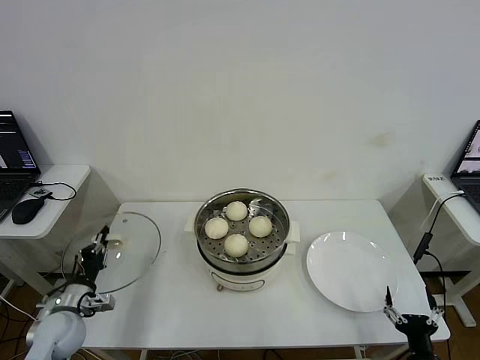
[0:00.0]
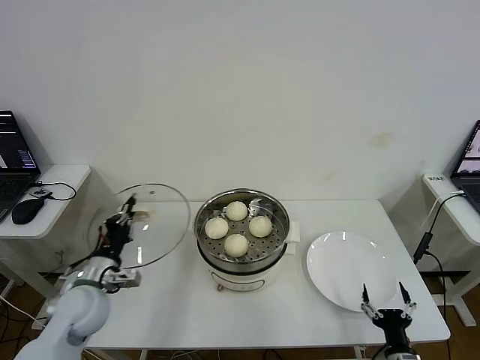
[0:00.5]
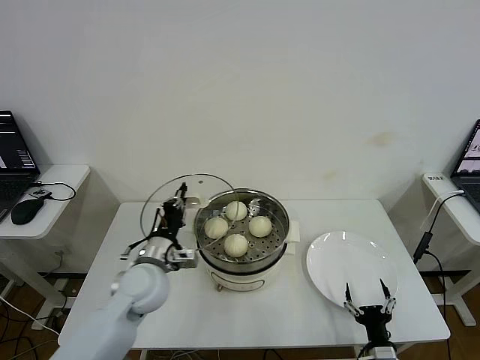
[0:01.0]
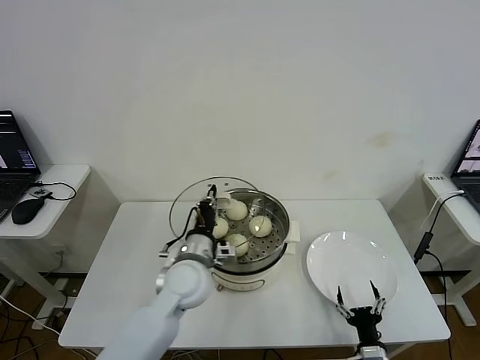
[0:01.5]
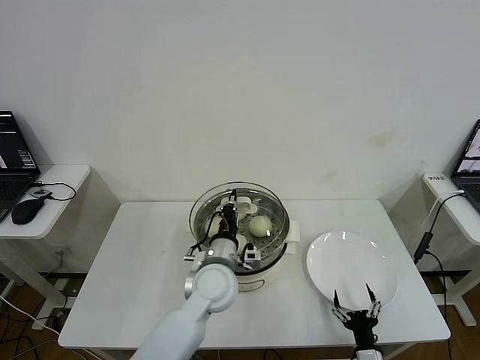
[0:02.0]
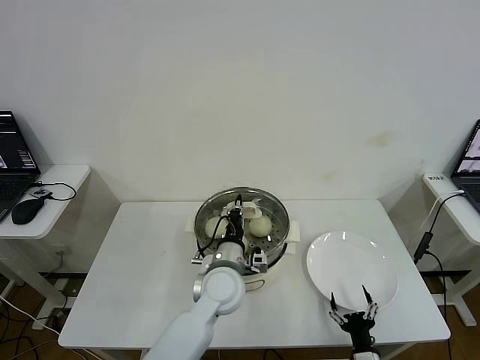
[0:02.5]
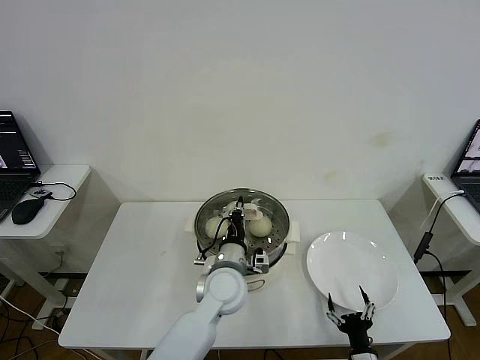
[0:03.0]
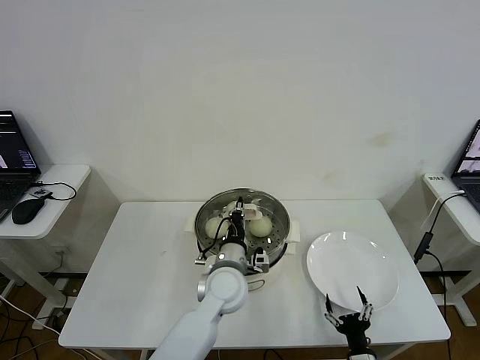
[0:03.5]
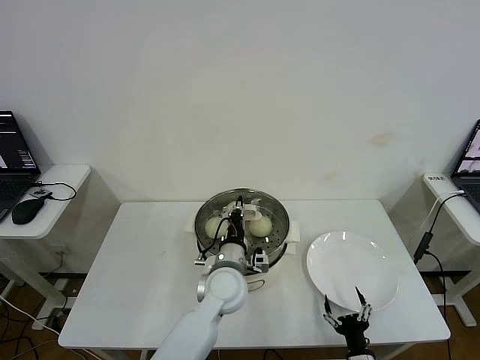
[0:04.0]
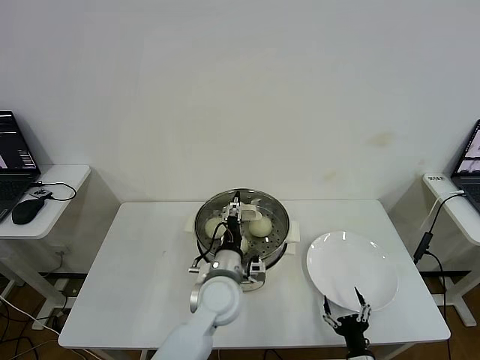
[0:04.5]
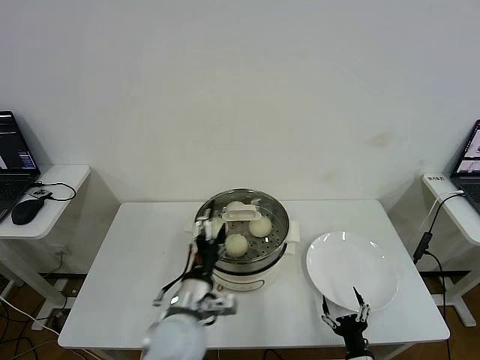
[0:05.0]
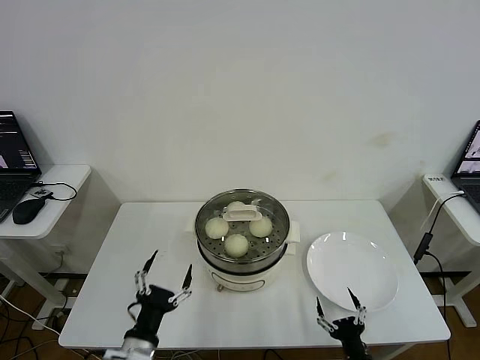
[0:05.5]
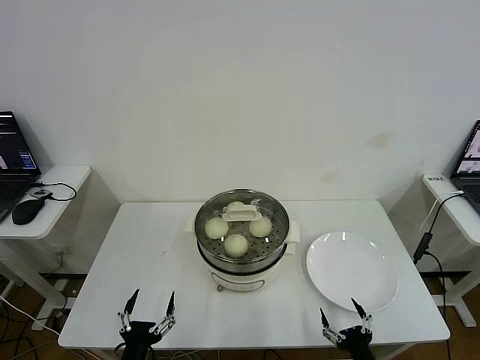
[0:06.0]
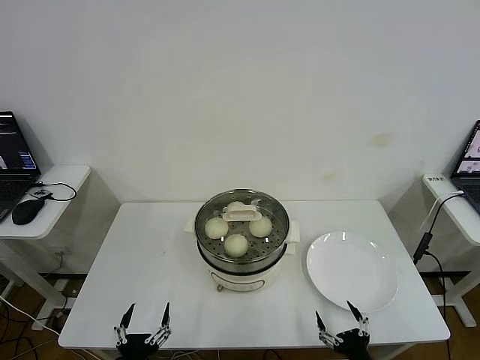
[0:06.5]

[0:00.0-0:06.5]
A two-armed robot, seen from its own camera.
Step, 0.0 to 4.0 s: Place the pot lid on the steamer with left gripper.
0.0 to 2.0 s: The right gripper is displaced to the left by approximately 10 cm. Meanwhile the left gripper heads to the right, covering roughly 35 cm.
2.0 to 4.5 s: The left gripper opens up.
4.5 to 6.5 s: The right gripper moves upward, some 5 cm. Meanwhile the left gripper travels backward and to the left by approximately 30 cm.

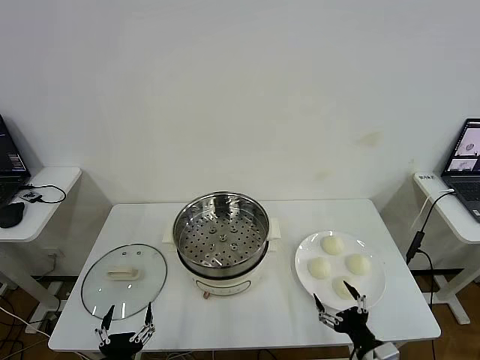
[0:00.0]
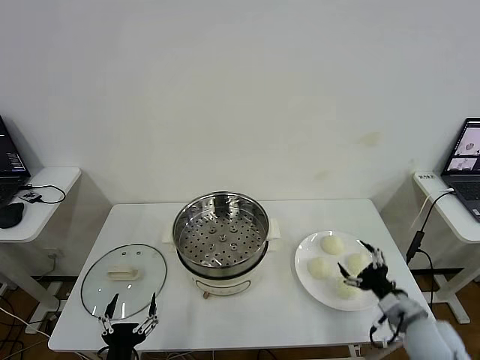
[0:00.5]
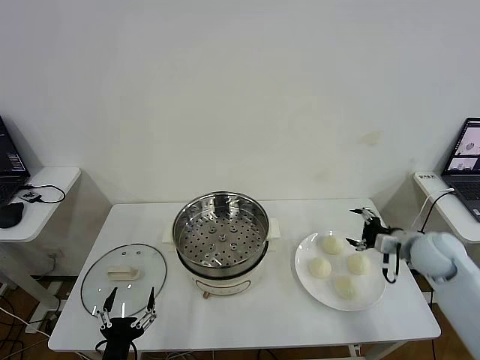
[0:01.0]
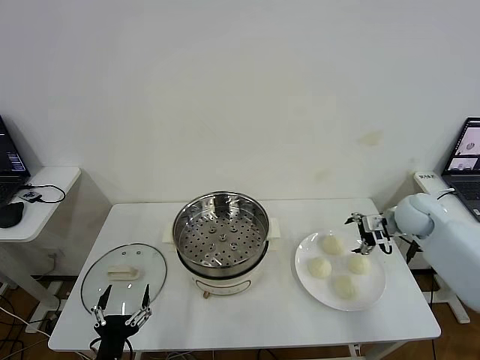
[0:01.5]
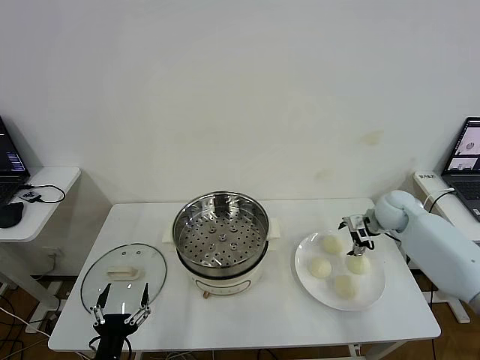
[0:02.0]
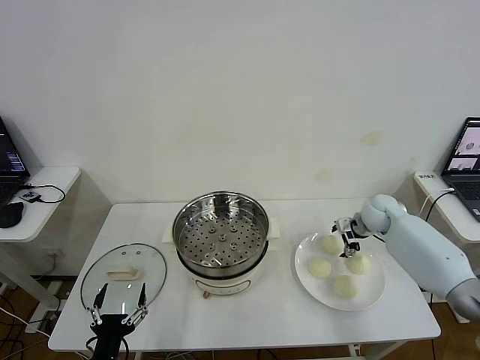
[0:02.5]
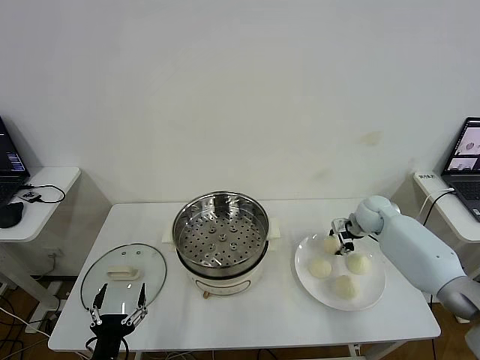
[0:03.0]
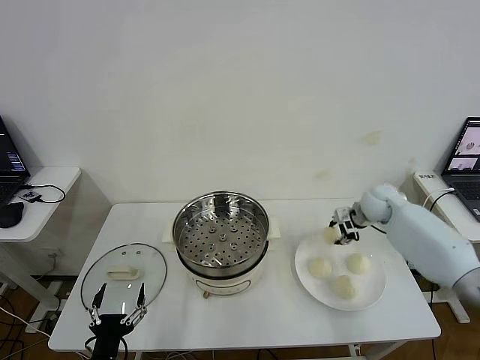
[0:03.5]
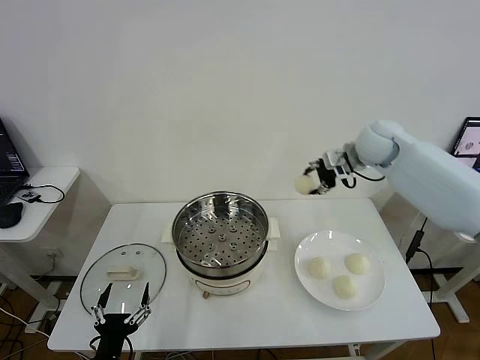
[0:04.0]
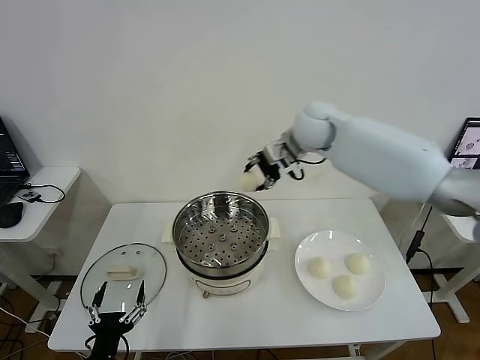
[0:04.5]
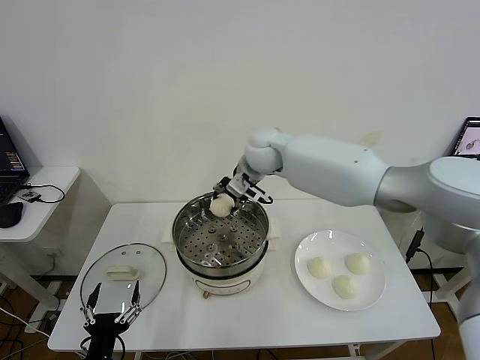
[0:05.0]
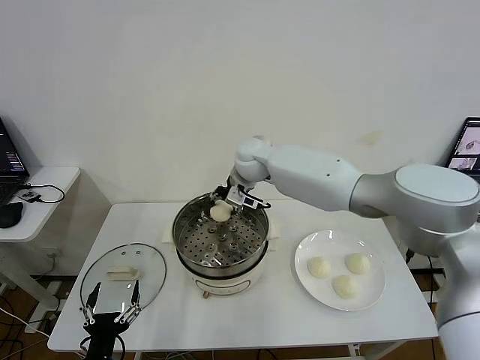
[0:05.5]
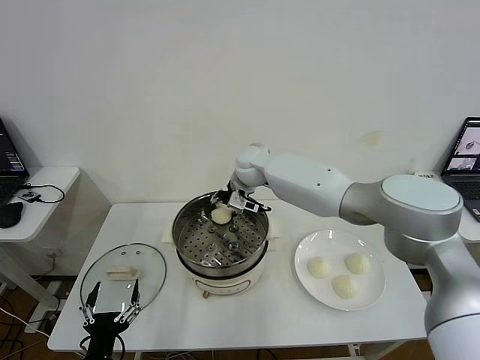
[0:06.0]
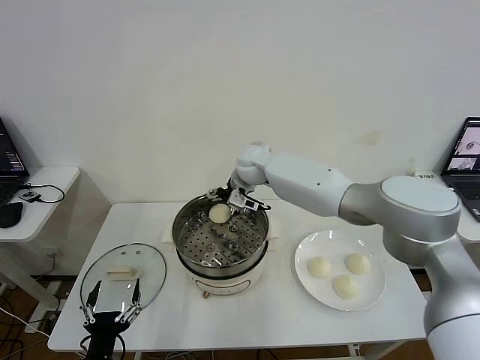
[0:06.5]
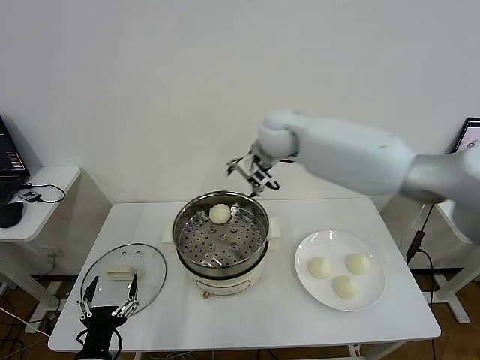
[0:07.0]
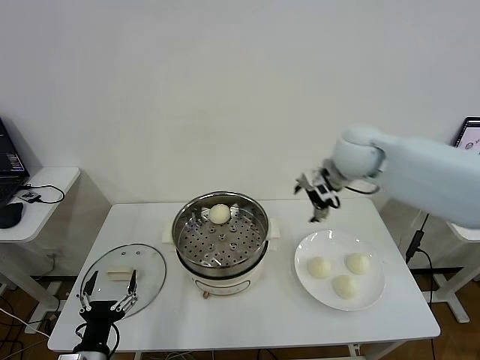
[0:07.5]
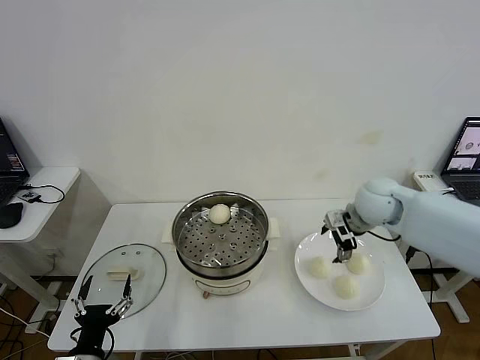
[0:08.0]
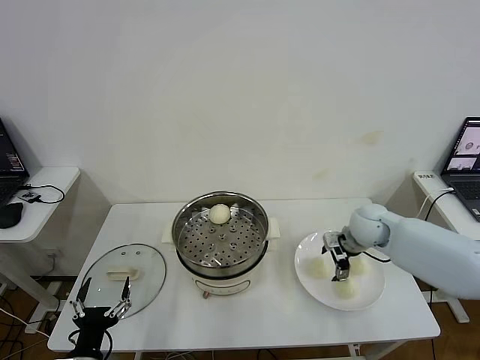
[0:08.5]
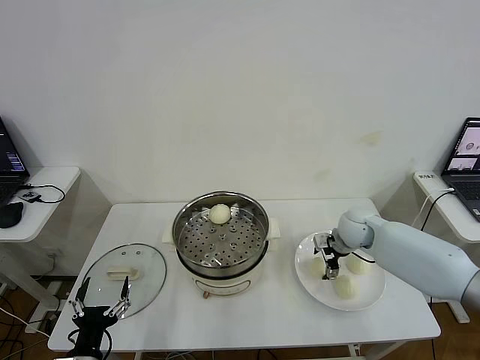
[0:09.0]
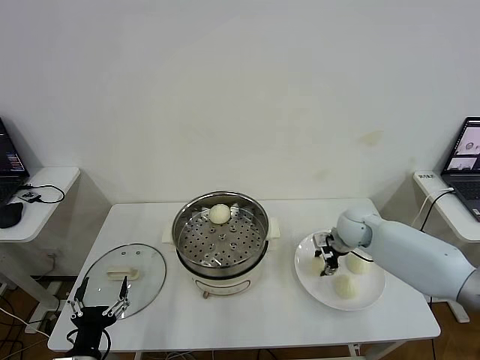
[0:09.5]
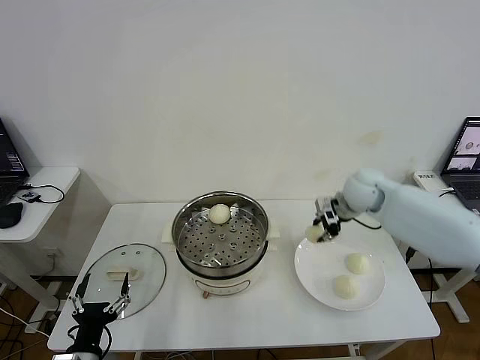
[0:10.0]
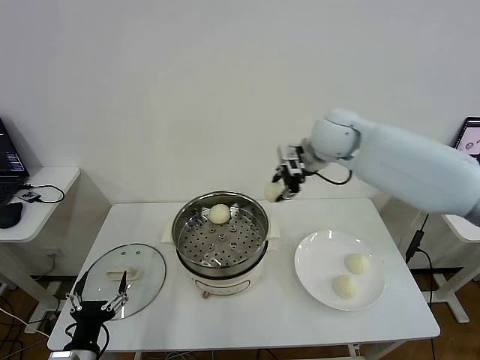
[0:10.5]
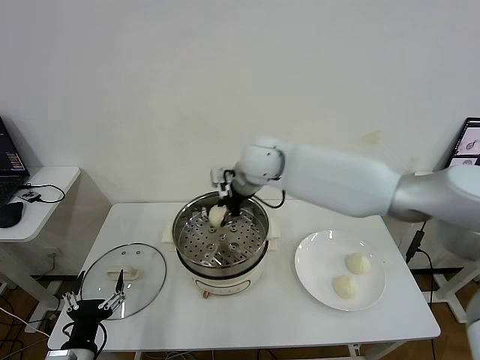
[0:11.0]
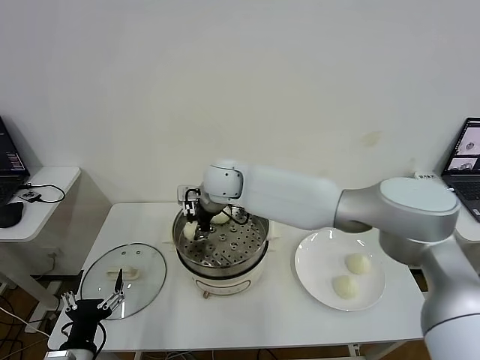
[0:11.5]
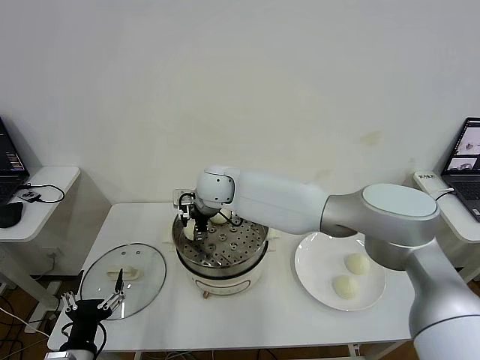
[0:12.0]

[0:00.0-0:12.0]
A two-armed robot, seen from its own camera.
Step, 0.0 to 3.0 s: Grasp the baozi in the plate with right gripper.
Step, 3.5 to 6.0 s: Place the baozi on the steamer with right gripper.
Step, 7.0 to 9.5 s: Grasp the baozi in the plate with right gripper.
2.0 to 4.0 s: The right gripper travels upward and to the left by approximately 25 cm, and closes its fingers.
4.0 to 6.0 s: The right gripper travels to the left and downward by roughly 25 cm.
6.0 to 8.0 s: The right gripper goes roughly 30 cm to the right and backward, and opens up.
8.0 to 10.0 s: The right gripper travels forward by about 5 cm, reaches approximately 10 cm downward, then returns, and closes its fingers.
10.0 to 12.0 s: The right gripper travels to the left by about 35 cm, and opens.

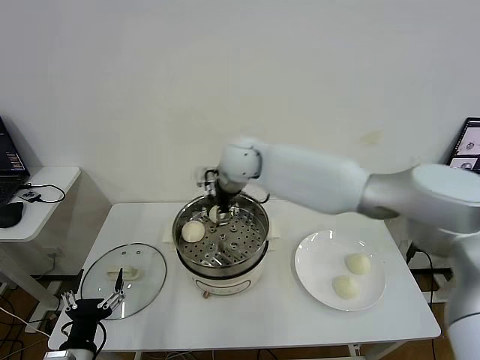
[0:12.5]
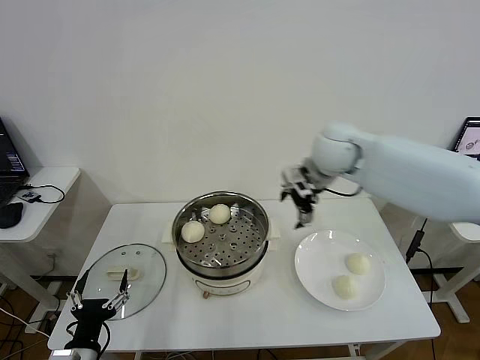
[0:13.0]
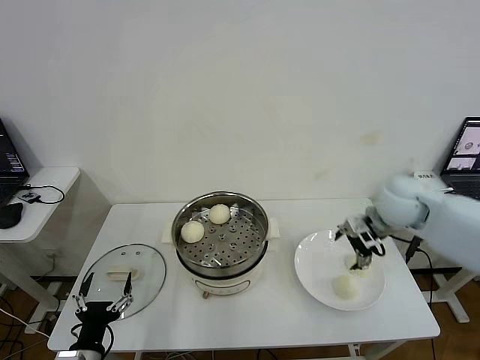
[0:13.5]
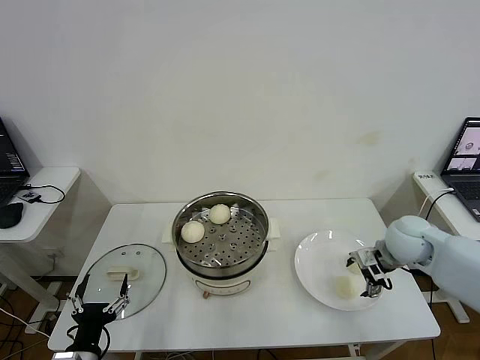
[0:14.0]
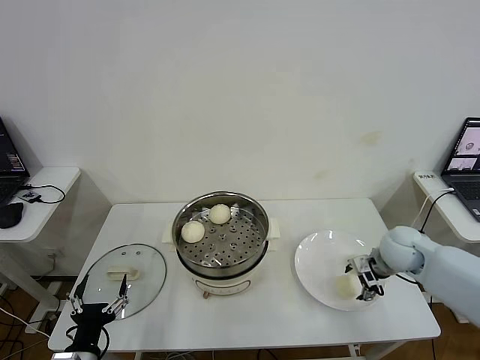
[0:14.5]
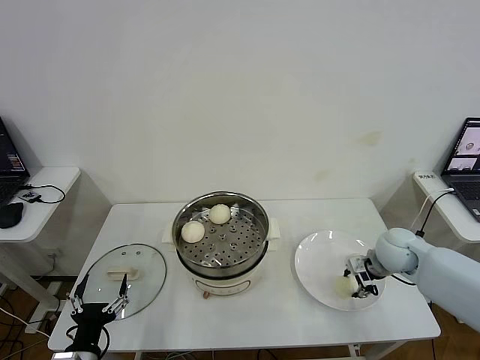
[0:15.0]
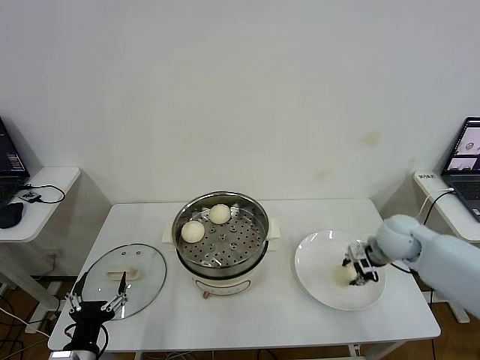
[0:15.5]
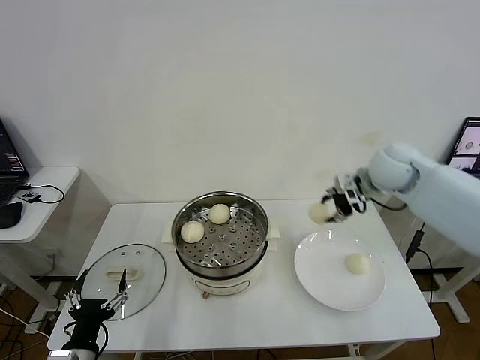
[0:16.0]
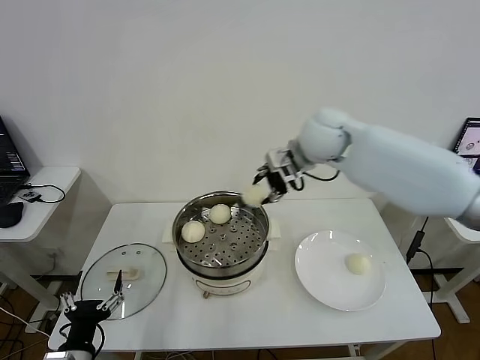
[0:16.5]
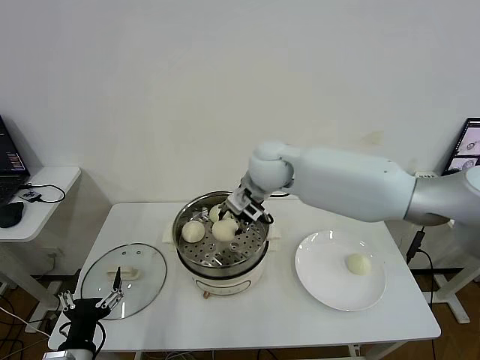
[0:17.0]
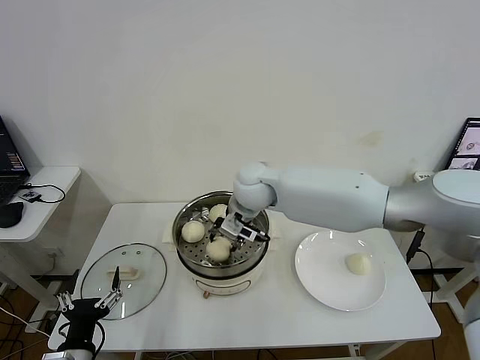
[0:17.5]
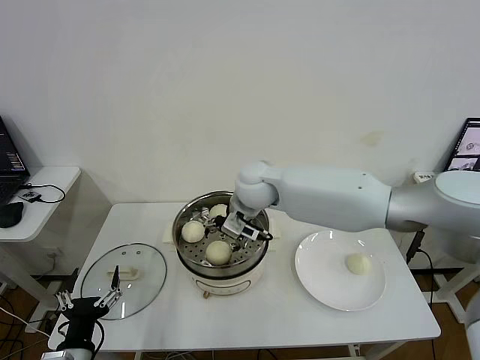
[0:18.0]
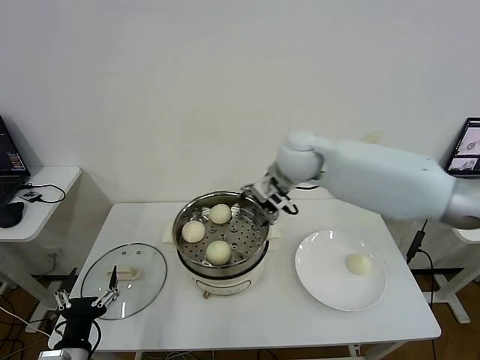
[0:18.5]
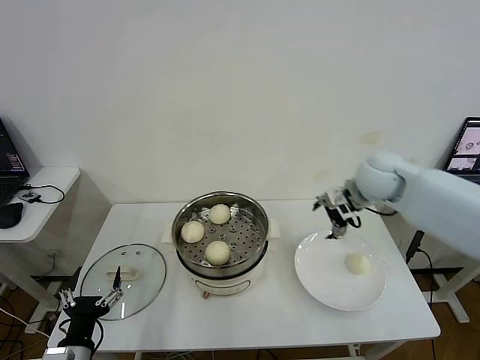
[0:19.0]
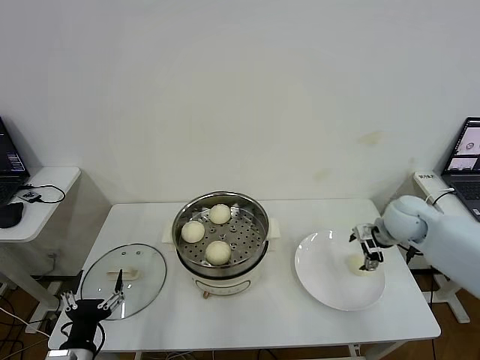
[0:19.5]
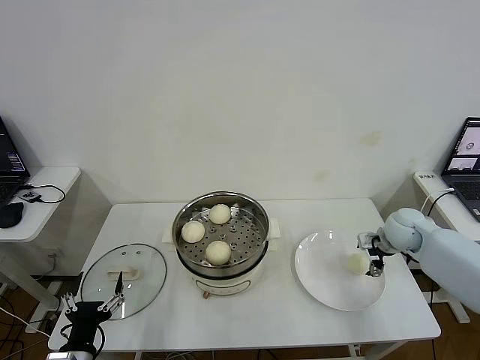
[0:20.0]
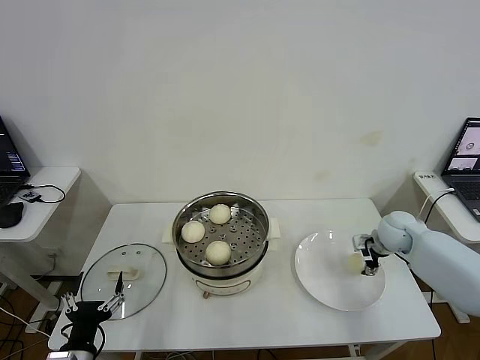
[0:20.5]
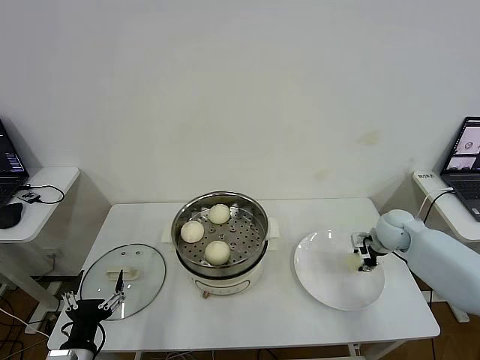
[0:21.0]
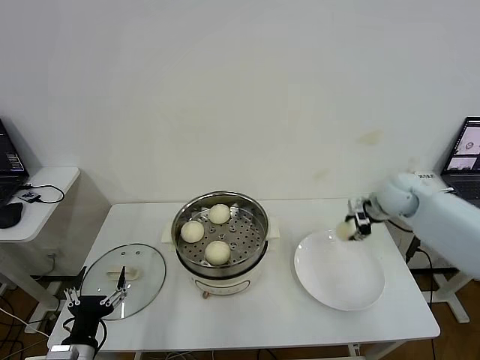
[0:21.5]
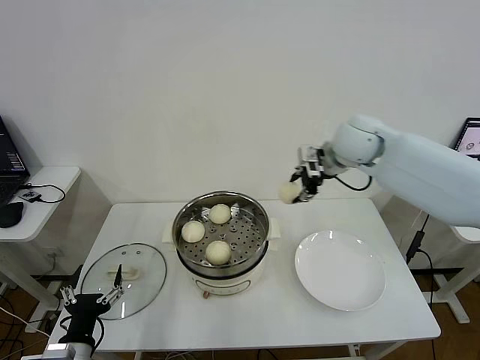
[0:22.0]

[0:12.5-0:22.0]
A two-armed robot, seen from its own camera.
Step, 12.5 to 15.0 s: Grasp the baozi in the plate with right gripper.
Step, 15.5 to 17.5 s: Place the baozi on the steamer with right gripper.
Step, 18.0 to 20.5 s: Grasp the baozi in the plate with right gripper.
12.5 to 14.5 s: The right gripper goes some 40 cm to the right and downward.
14.5 to 16.5 s: The right gripper heads to the left, upward and forward, covering roughly 35 cm, and closes up.
16.5 to 18.0 s: The right gripper travels to the left and downward by roughly 15 cm, and opens.
18.0 to 20.0 s: The right gripper moves to the right, some 35 cm.
20.0 to 22.0 s: The right gripper shifts approximately 30 cm upward and to the left, and closes up.
